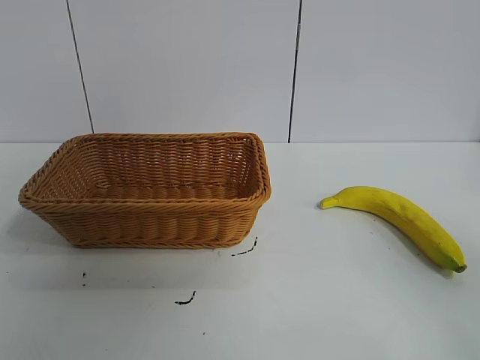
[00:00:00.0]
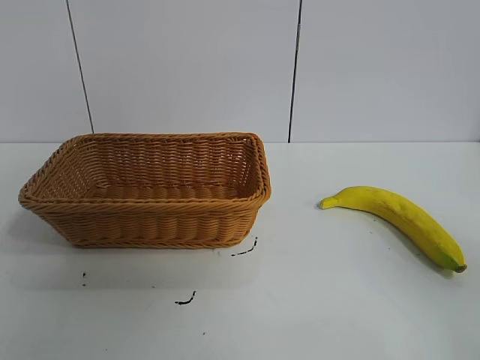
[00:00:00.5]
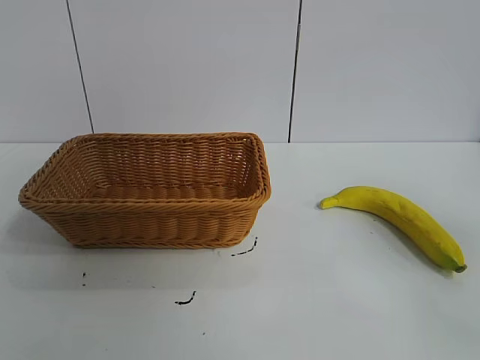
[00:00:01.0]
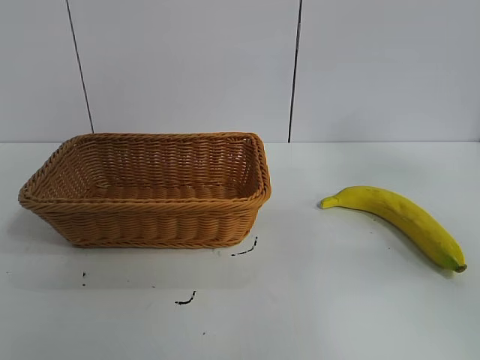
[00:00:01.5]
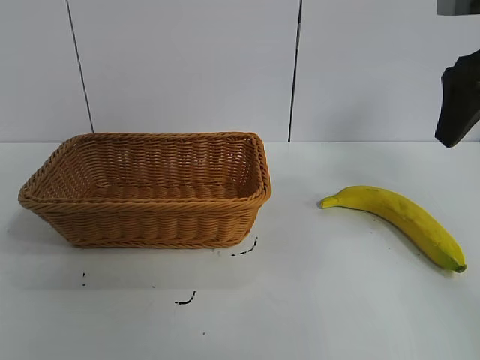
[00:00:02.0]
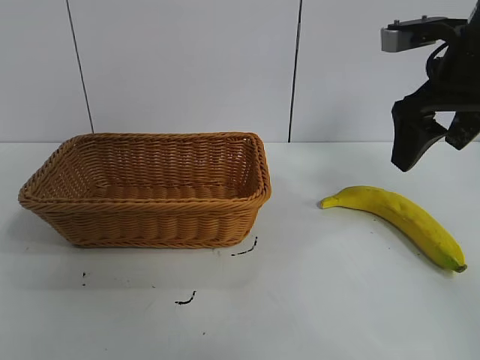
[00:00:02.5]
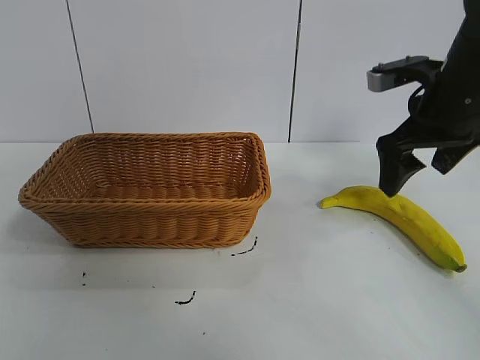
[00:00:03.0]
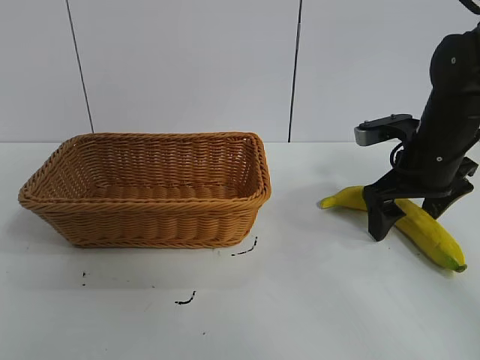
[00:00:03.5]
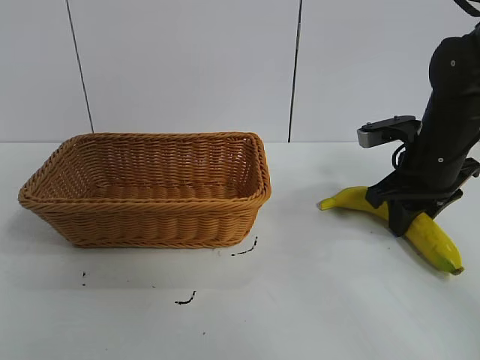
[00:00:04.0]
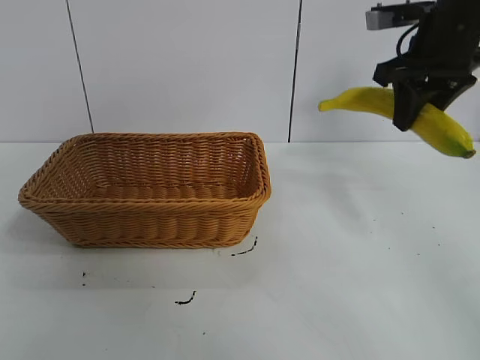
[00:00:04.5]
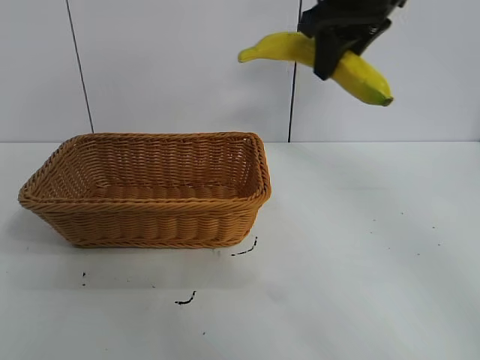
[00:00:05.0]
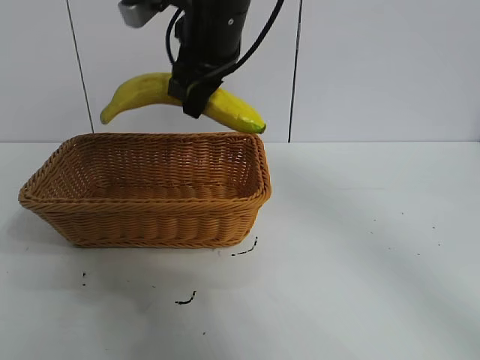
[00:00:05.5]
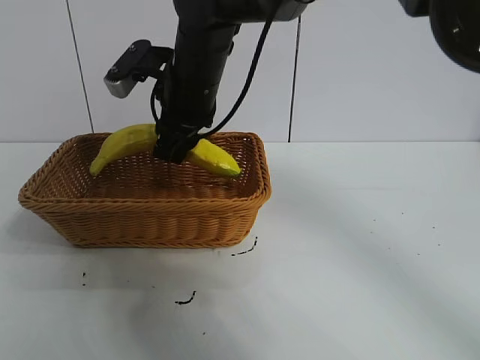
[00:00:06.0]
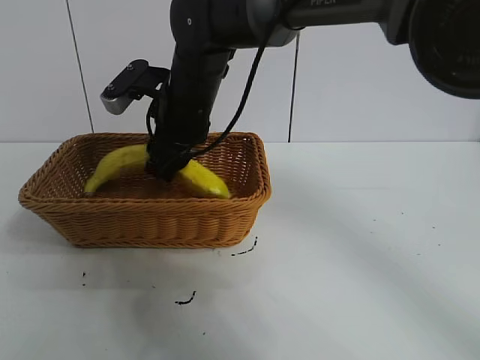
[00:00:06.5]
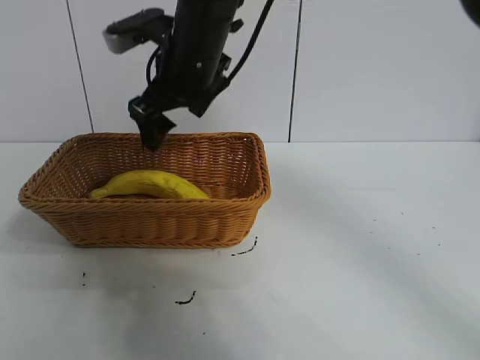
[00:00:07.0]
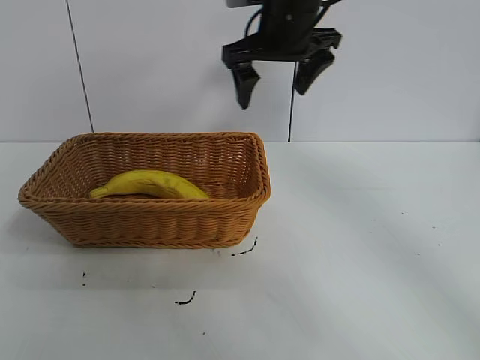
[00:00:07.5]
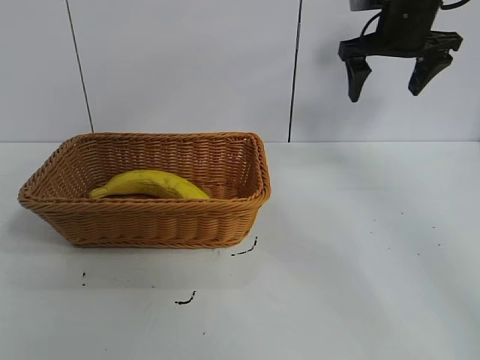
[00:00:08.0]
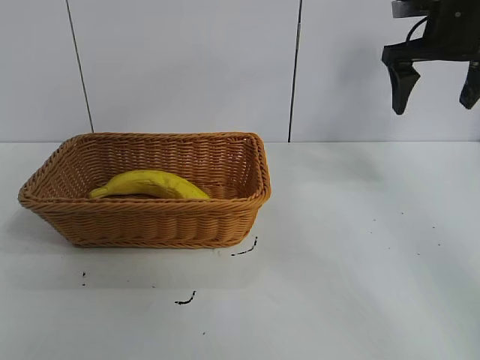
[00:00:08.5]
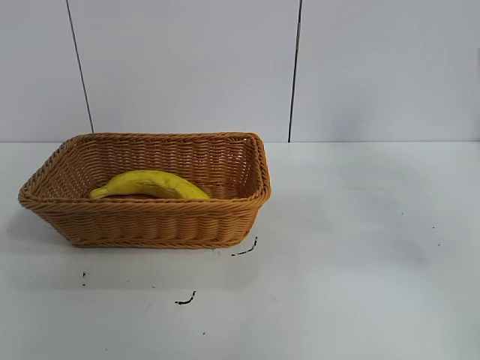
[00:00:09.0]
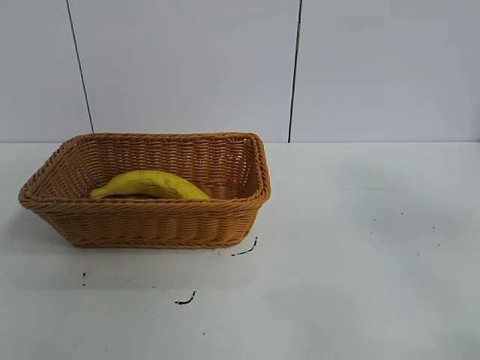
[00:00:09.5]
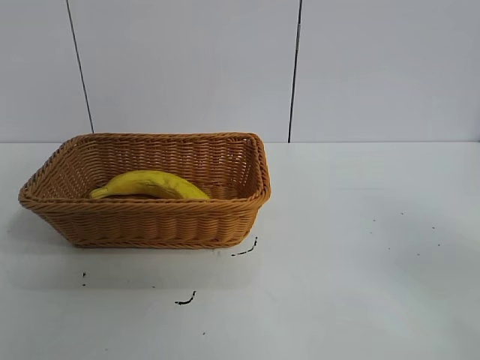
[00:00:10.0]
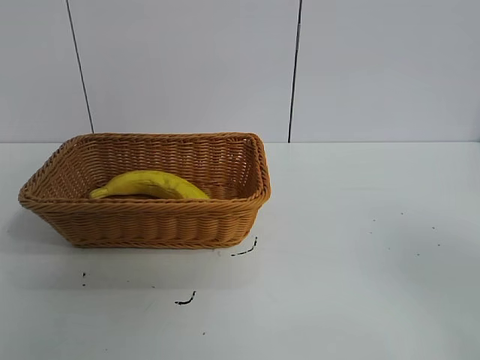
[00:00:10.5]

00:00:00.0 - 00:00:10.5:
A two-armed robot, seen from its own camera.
Task of the whole recording: pick up the banana and put it into the basket.
Step, 00:00:01.0 - 00:00:03.5: Grasp the banana with right gripper.
Step, 00:00:04.5 - 00:00:06.5: Place the banana in the basket with right gripper.
